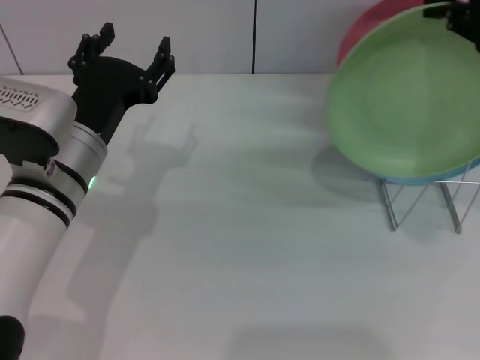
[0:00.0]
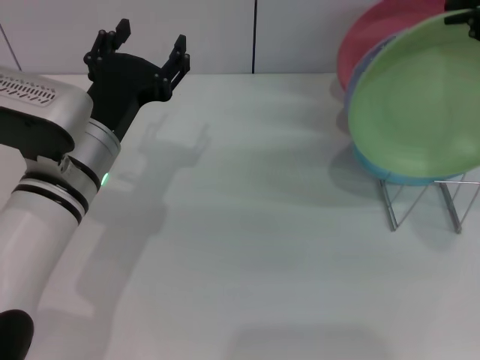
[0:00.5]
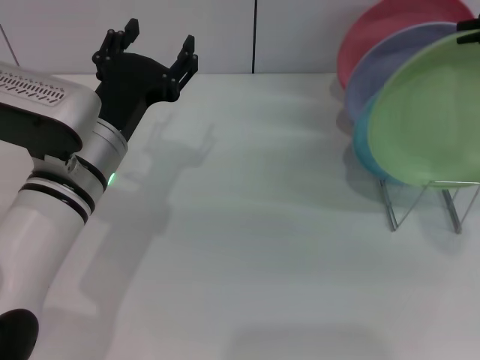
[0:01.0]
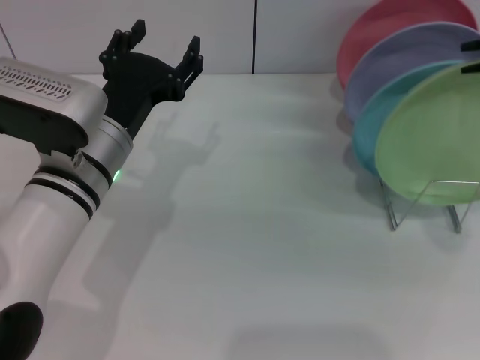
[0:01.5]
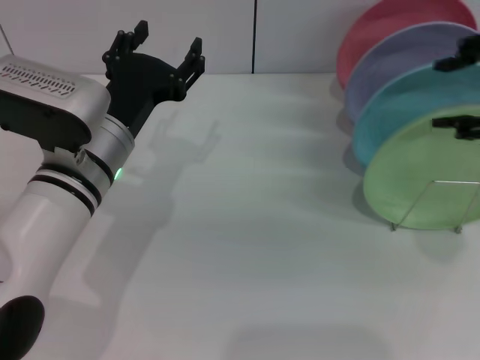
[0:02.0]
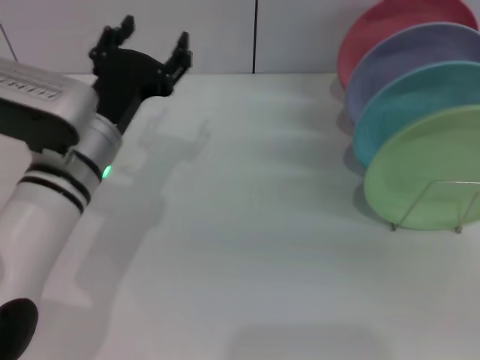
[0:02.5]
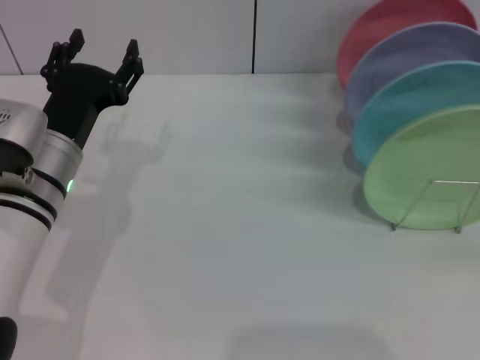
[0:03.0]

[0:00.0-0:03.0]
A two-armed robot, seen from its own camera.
Task of the whole recording: Grip the plate with one hand, pass it to the other, then set it on the shelf.
Step, 0:00.0 to 0:02.0: Place the plate on the shelf with the right gripper.
0:00.0 to 0:01.5: The grippers move only a little.
0:01.5 to 0:03.0: The left gripper ends up roughly 5 cm from where it was. Meanwhile the right gripper is displaced downward, to the right and backward by approximately 30 cm, and opens its fingers.

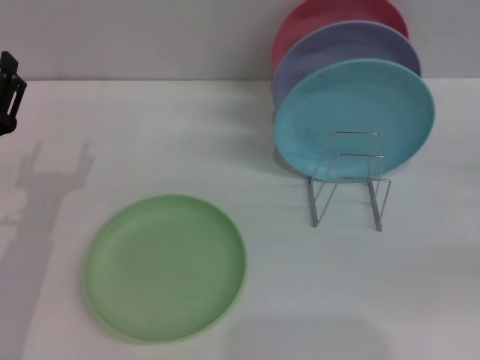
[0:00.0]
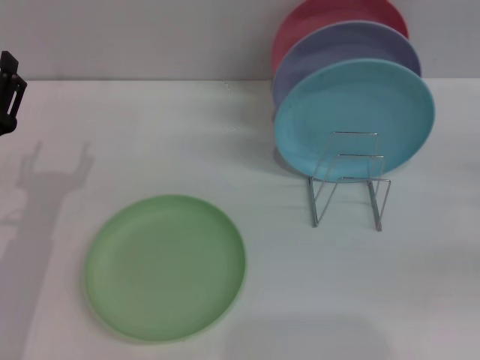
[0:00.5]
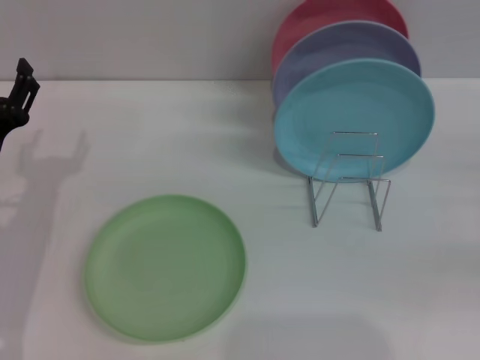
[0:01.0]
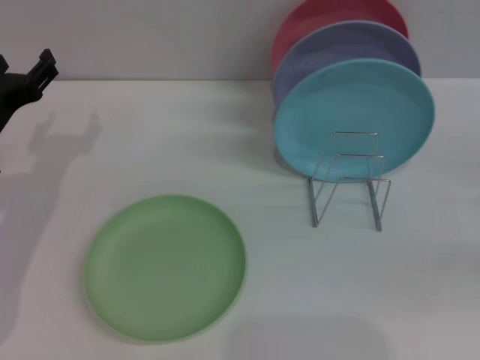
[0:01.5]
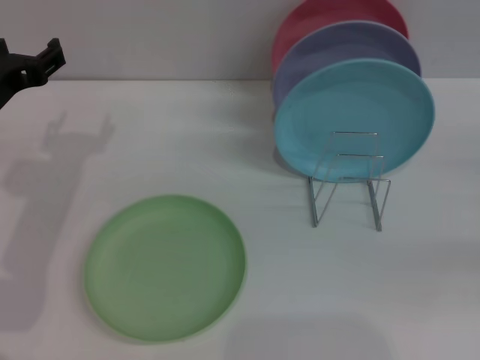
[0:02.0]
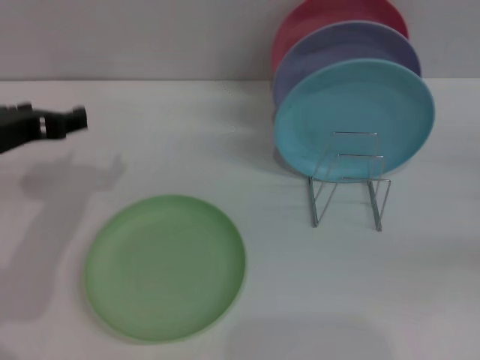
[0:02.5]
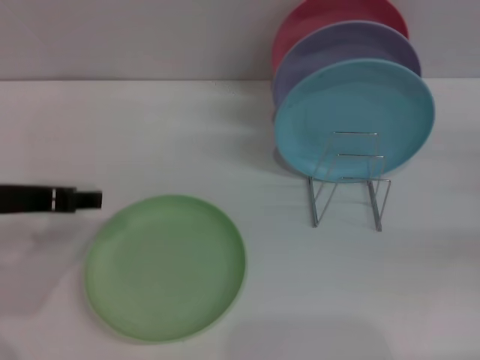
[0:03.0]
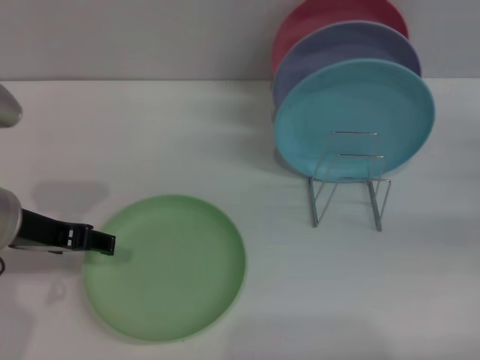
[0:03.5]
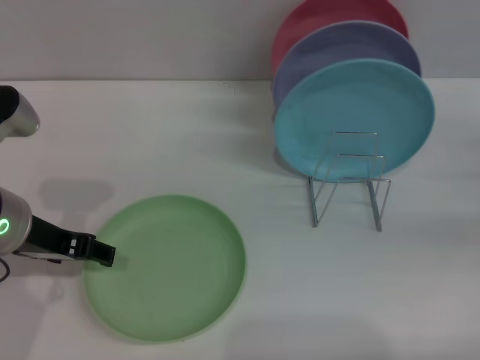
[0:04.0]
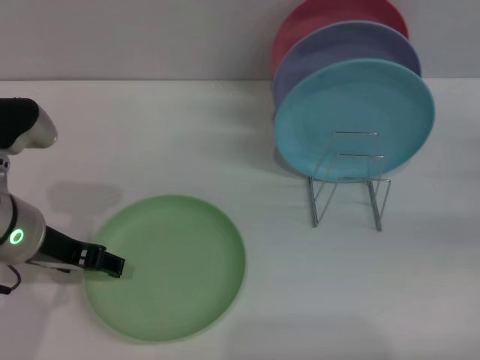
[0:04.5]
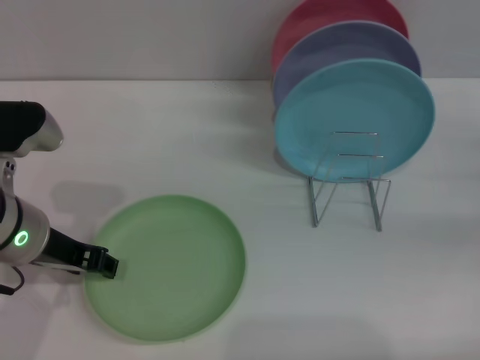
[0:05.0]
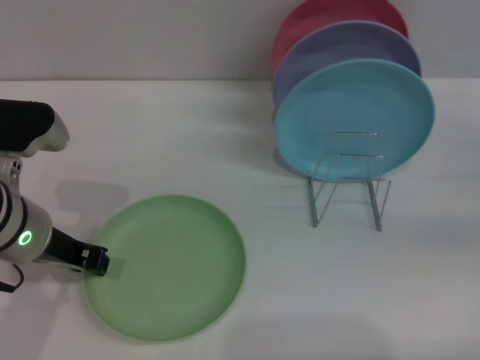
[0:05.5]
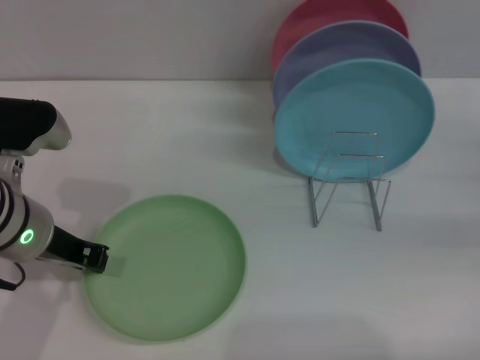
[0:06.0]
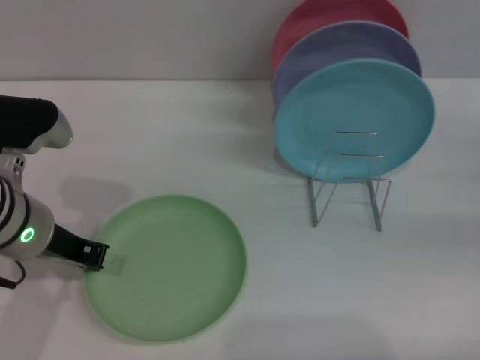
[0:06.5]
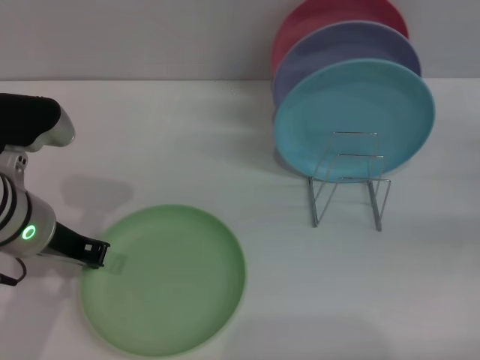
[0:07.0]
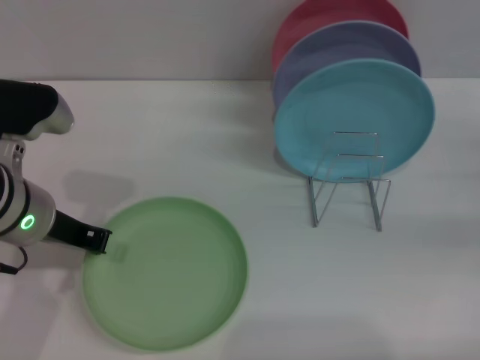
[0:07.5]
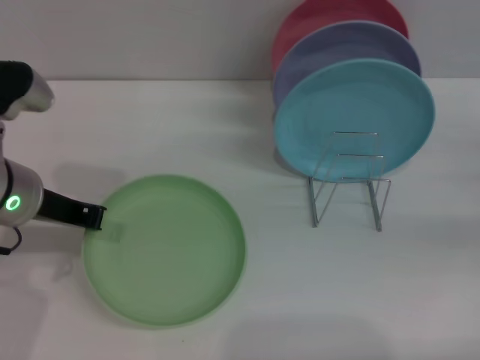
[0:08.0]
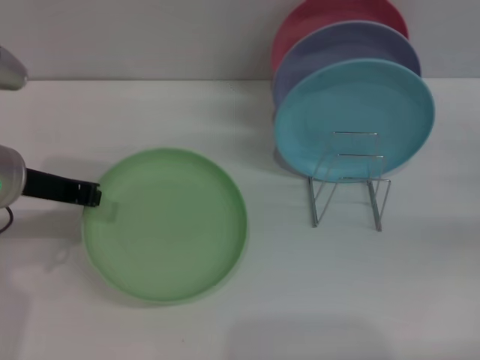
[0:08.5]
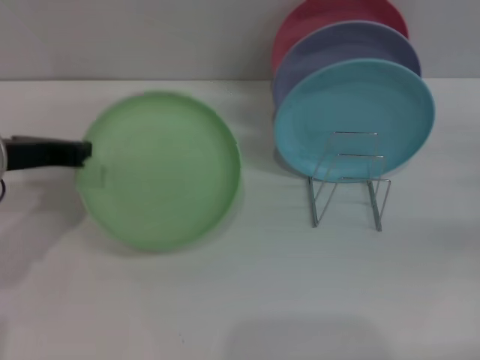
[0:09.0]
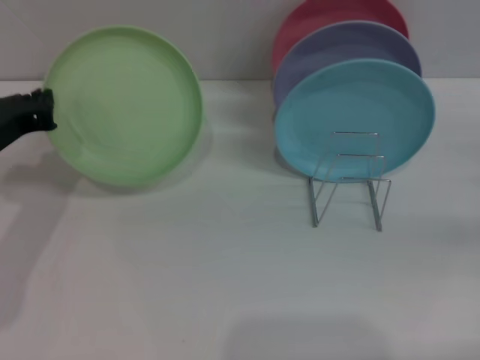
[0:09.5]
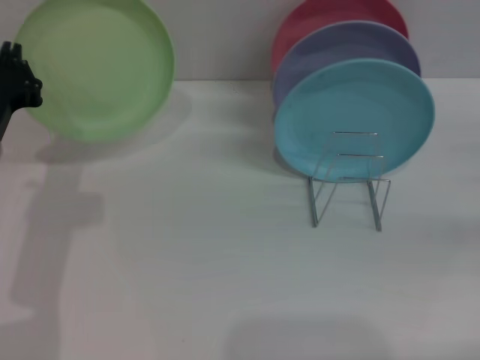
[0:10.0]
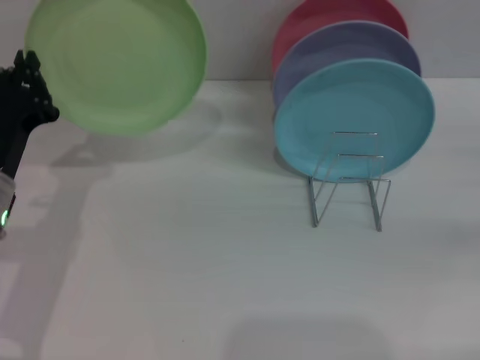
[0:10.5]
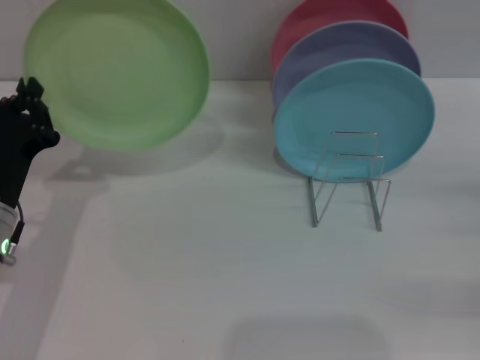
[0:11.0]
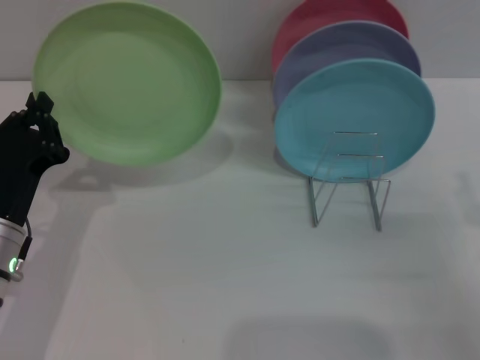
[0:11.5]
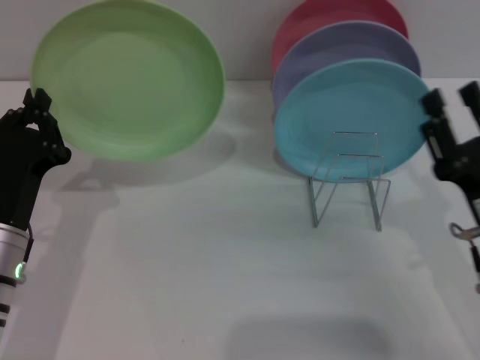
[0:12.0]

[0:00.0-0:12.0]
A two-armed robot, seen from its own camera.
Task of the whole recording: Grip the plate with one hand, pass it to the other, then set it on the shelf.
Step, 0:00.0 to 0:10.0: Pick up the plate with the left gripper.
0:00.0 to 0:02.0: The left gripper travels upward and forward by some 10 cm.
0:04.0 to 0:06.0: The left gripper closes its fingers.
0:06.0 to 0:08.0: The left gripper closes its fingers.
0:10.0 to 0:12.0: The left gripper is displaced downward and backward by some 10 cm. Meanwhile the right gripper heads to the left, covering roughly 20 cm.

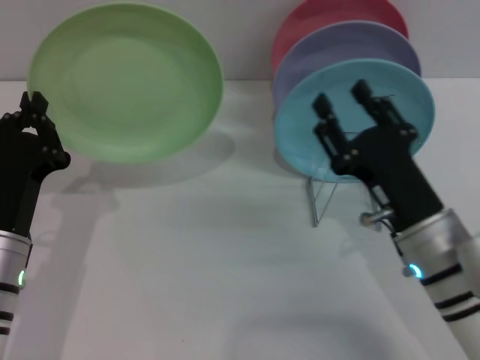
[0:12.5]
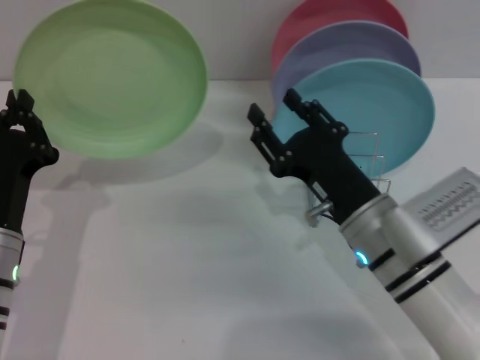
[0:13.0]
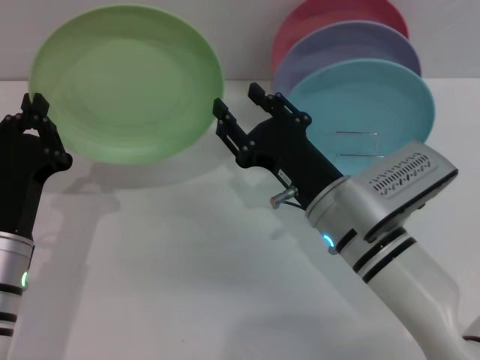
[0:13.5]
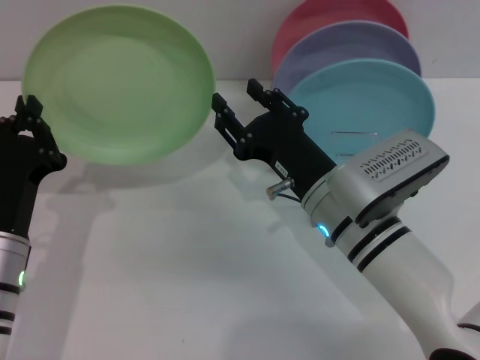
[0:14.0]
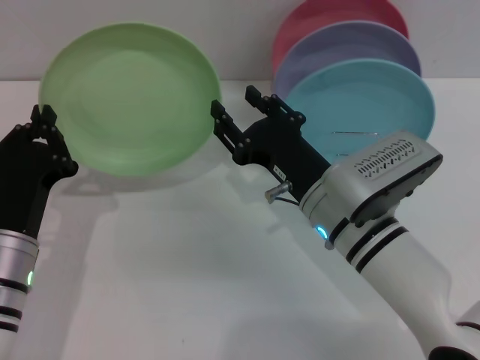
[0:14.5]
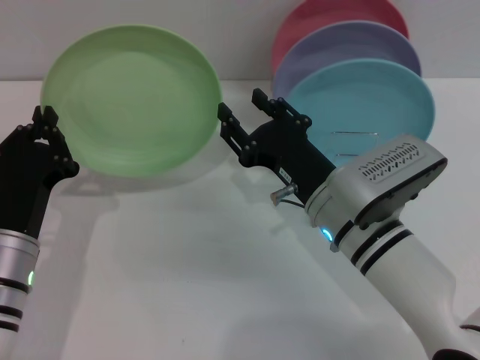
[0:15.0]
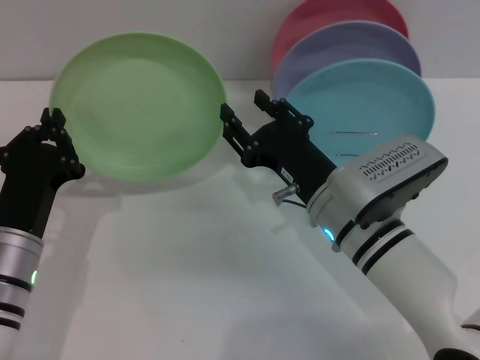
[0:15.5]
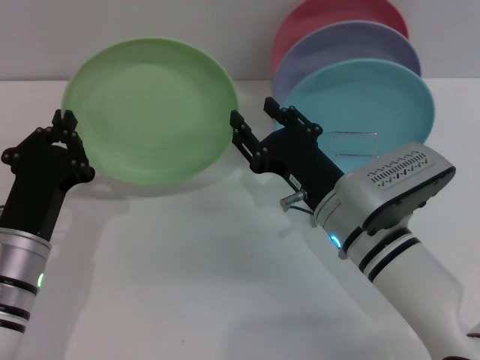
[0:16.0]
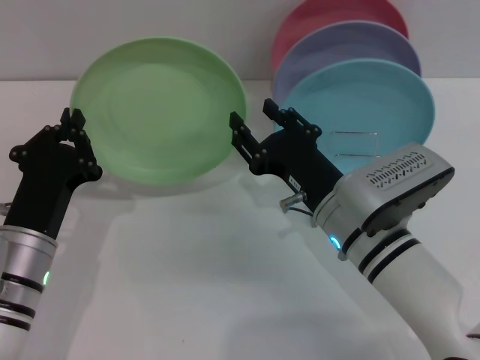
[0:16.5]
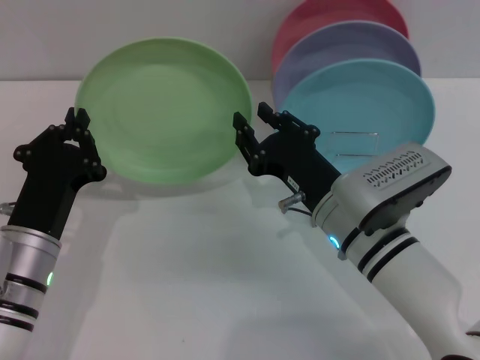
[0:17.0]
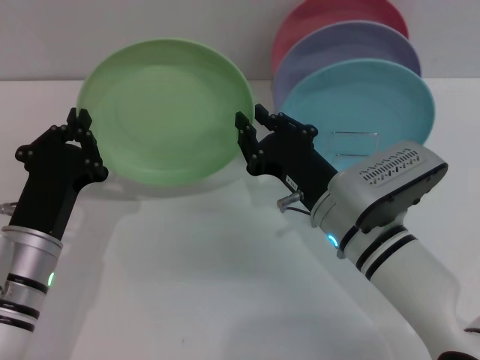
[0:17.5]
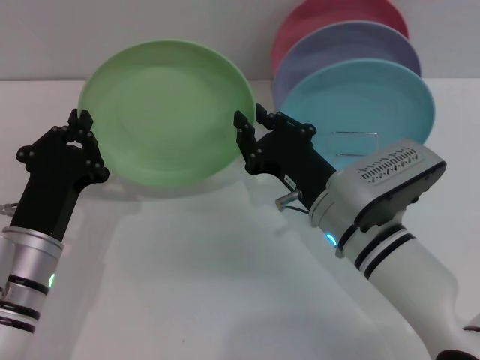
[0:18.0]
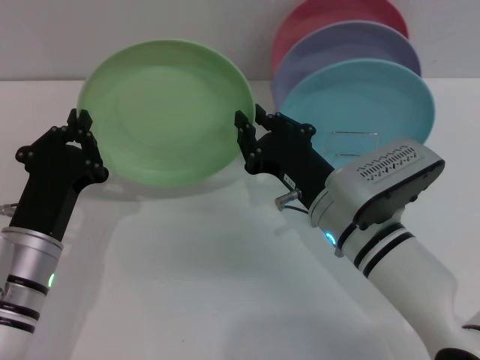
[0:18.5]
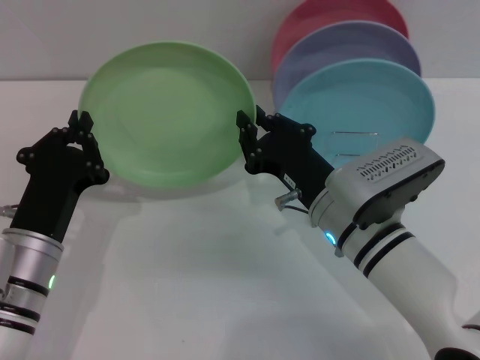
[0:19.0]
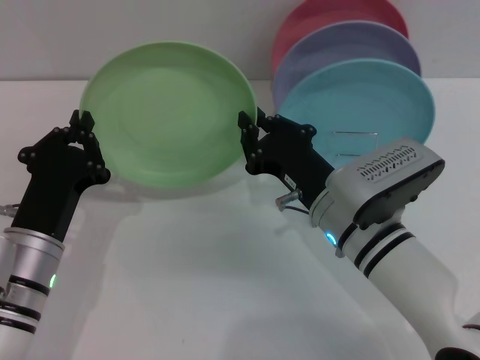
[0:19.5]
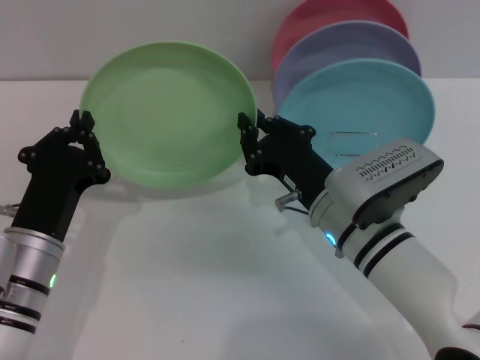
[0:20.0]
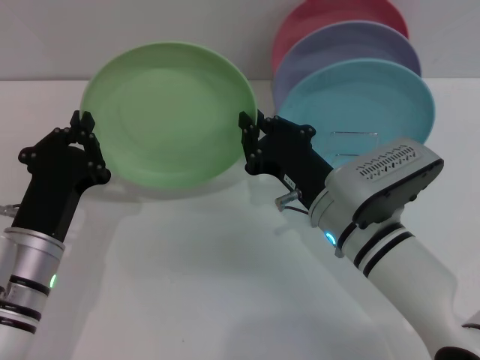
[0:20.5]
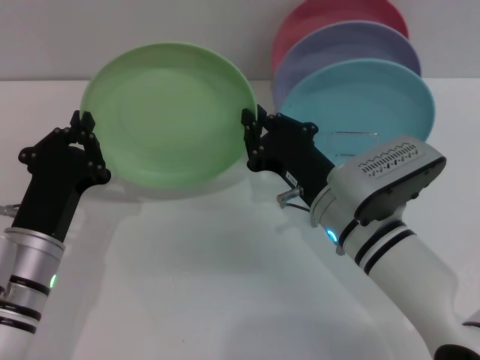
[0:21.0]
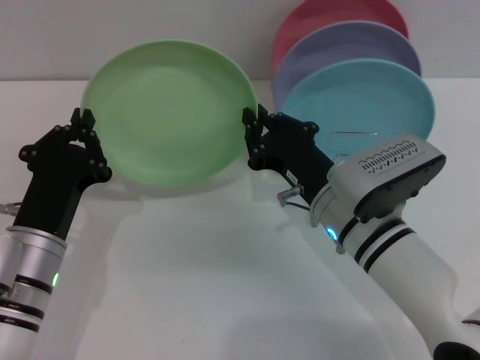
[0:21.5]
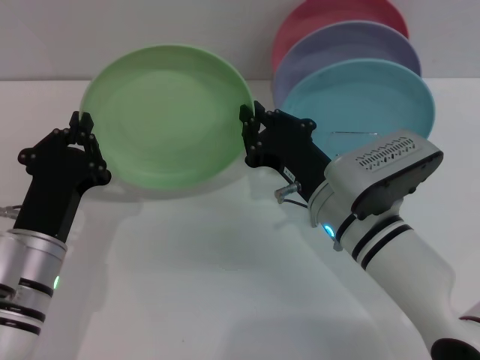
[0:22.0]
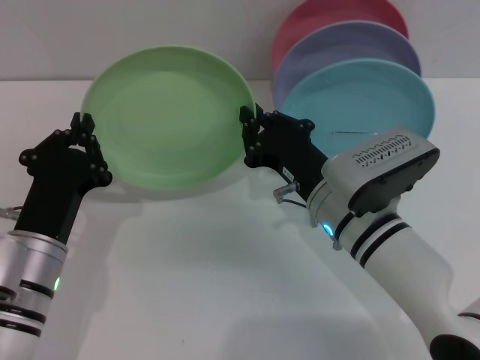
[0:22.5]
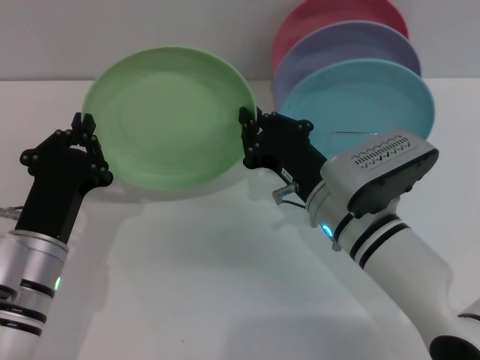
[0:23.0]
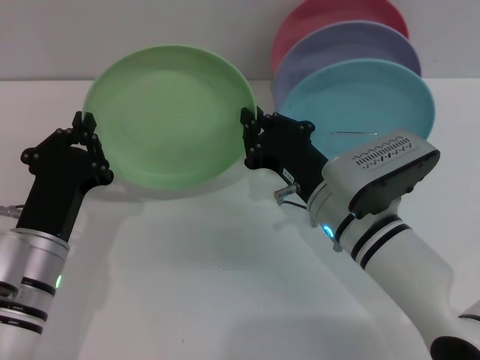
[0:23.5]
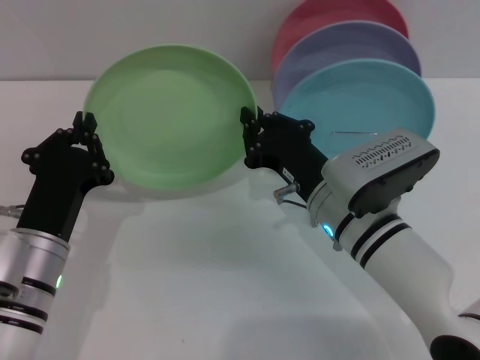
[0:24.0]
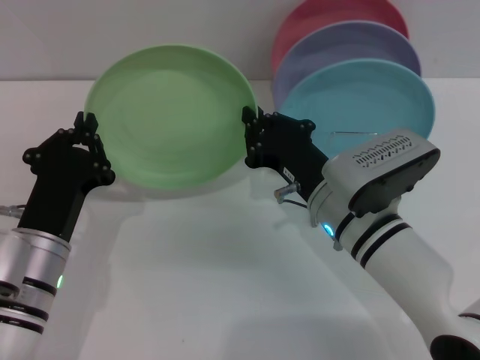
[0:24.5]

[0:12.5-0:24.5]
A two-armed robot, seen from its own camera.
Task of the whole recording: Grip the plate with one hand, pass it to the other, then set it on the shelf.
0:12.5 to 0:14.5: The right gripper is displaced to the left by some 5 cm.
0:14.5 to 0:16.5: There are only small adjustments of the grippers.
0:16.5 to 0:18.5: The right gripper closes.
0:18.5 to 0:24.5: Both grippers stay put.
